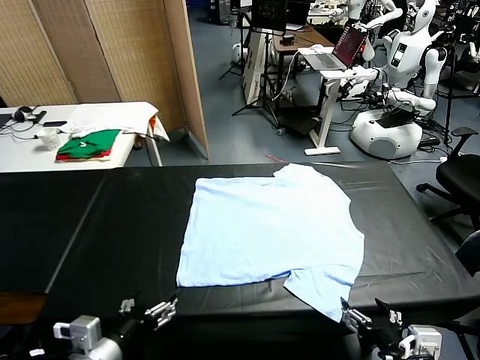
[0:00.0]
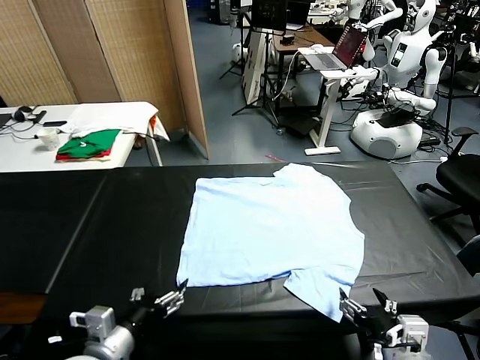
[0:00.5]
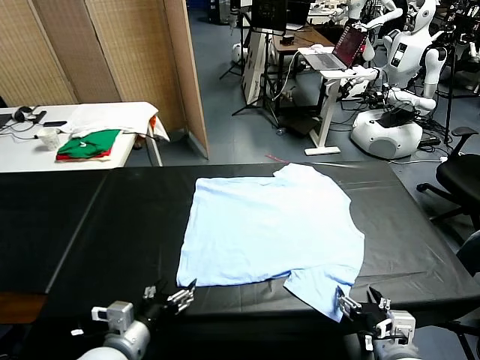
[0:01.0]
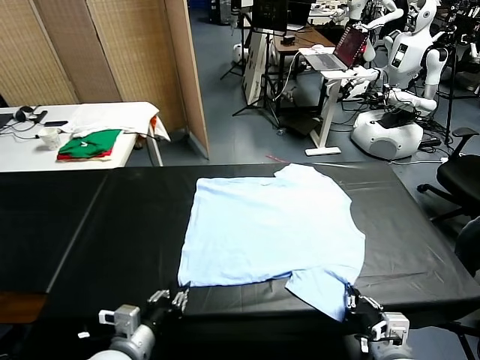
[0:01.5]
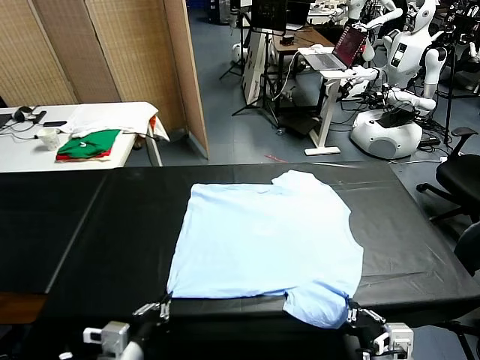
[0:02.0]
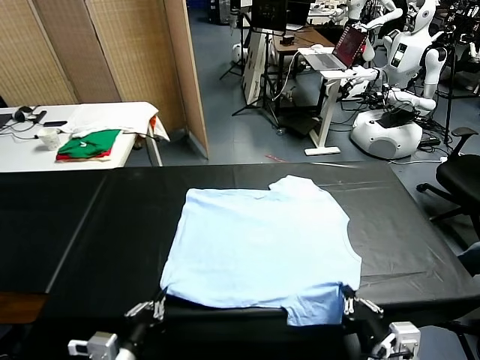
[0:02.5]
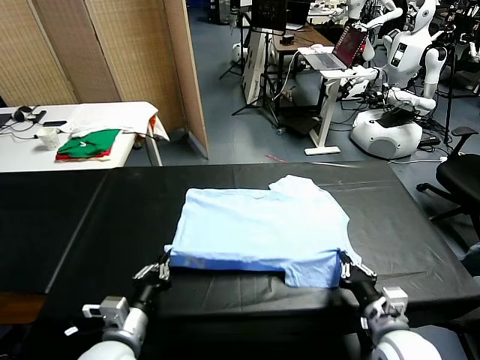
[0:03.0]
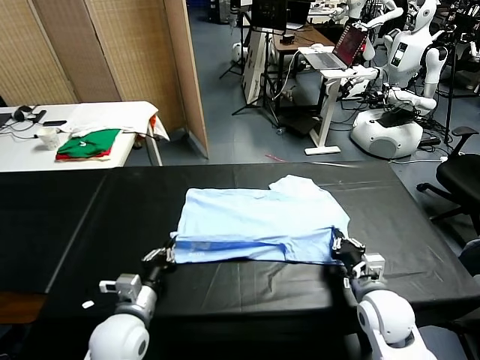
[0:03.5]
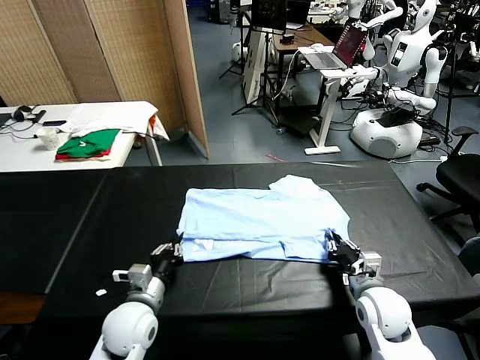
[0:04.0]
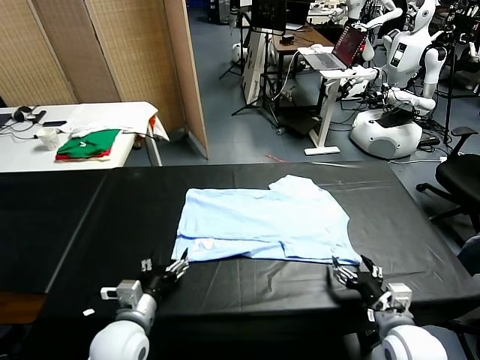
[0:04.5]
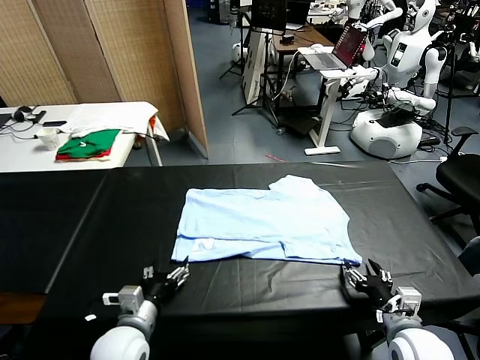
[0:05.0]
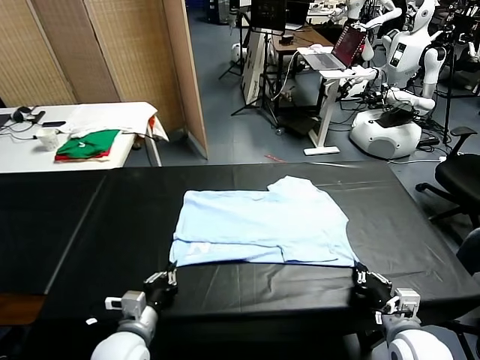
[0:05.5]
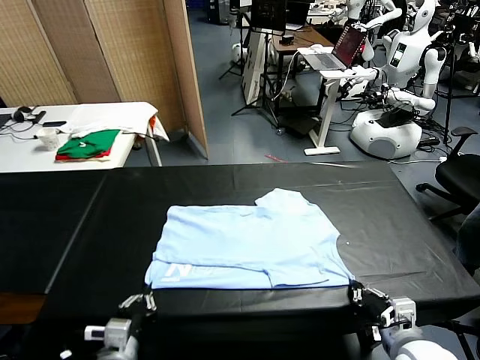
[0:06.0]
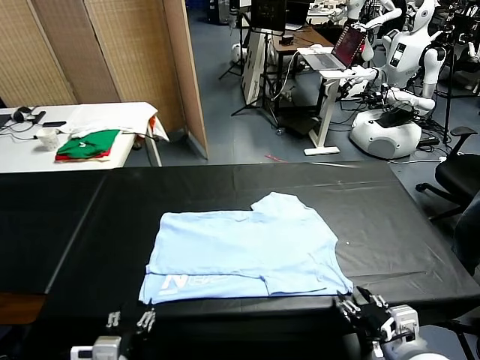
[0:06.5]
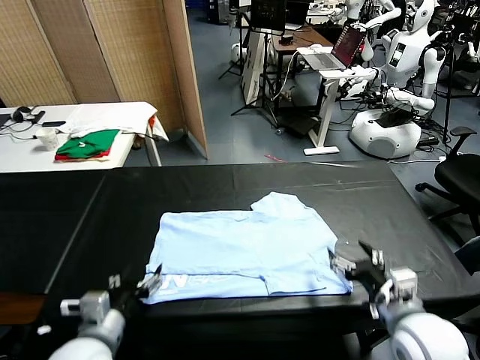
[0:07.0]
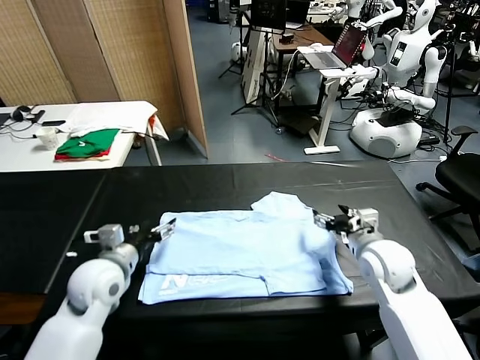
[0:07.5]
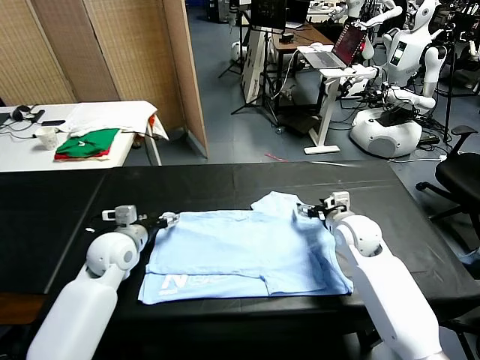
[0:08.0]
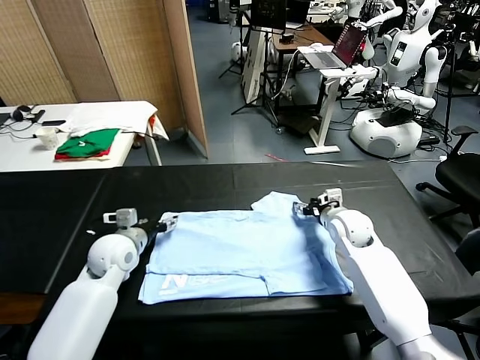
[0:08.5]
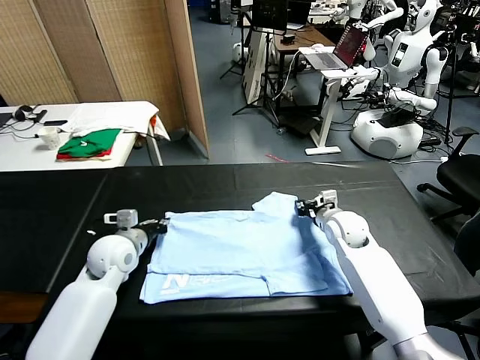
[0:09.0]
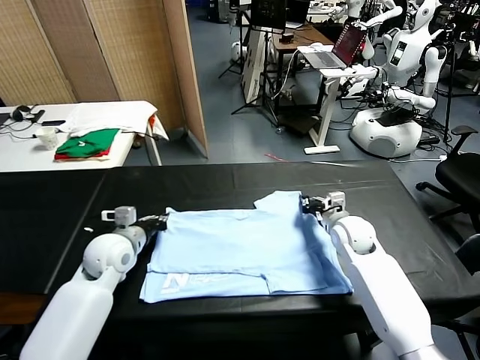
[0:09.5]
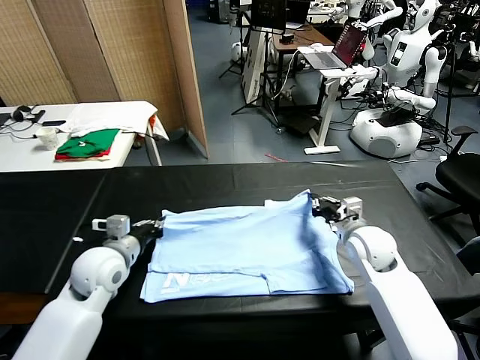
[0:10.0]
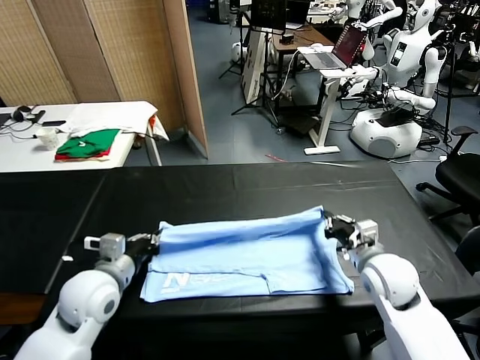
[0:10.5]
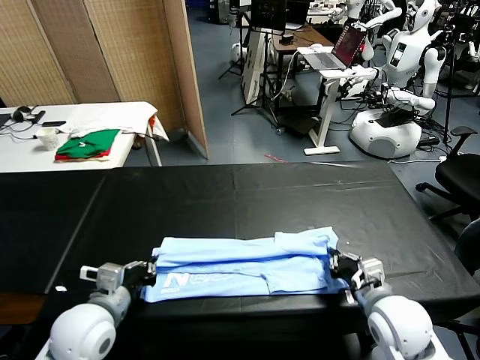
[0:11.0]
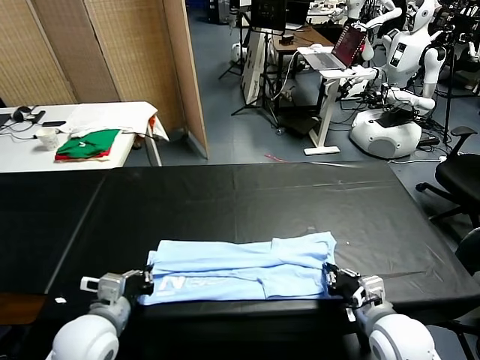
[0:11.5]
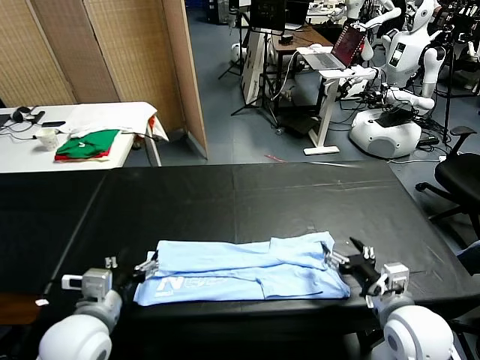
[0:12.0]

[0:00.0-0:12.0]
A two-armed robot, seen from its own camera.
Task of the whole recording: fold and organize the clothes.
Step, 0:00.0 to 0:01.5: use both grippers simultaneously to clamp the lower edge of the clothing fabric.
Step, 0:02.0 to 0:04.0: use both grippers to drag the lower edge of the fabric forward and fold it over the upper edge.
Step, 0:04.5 to 0:06.0: Drag the clothes downward with both gripper.
Step, 0:07.0 to 0:09.0: use both grippers simultaneously to clamp the upper edge of the clothing fabric.
Step, 0:09.5 to 0:11.5: use both grippers to drag the upper edge of the fabric backward and fold it over the lower edge.
0:02.0 to 0:04.0: The two grippers go roughly 15 cm forward. The right gripper opens its fingers.
0:04.0 to 0:06.0: Both grippers move backward, about 10 cm. The right gripper closes; the left gripper opens, then closes again.
0:06.0 to 0:08.0: The grippers both shift forward by roughly 25 cm. The left gripper opens its fingers. The right gripper opens up.
0:08.0 to 0:10.0: The two grippers go approximately 5 cm backward. The left gripper closes. The right gripper closes.
0:10.0 to 0:12.0: The grippers both shift backward by roughly 15 cm. The left gripper opens; the right gripper opens its fingers.

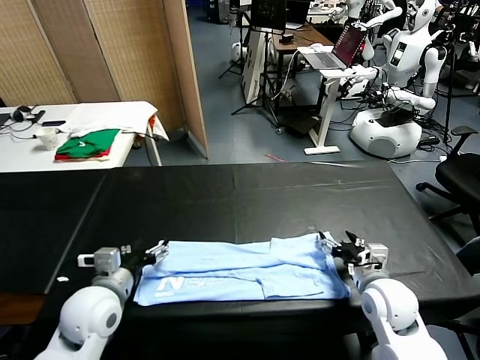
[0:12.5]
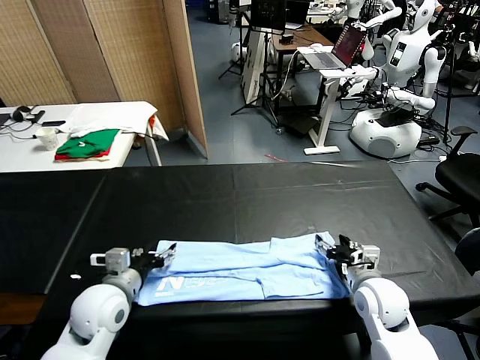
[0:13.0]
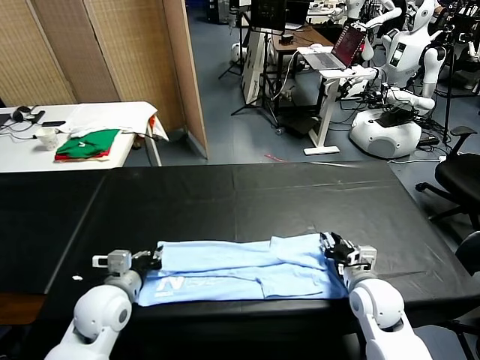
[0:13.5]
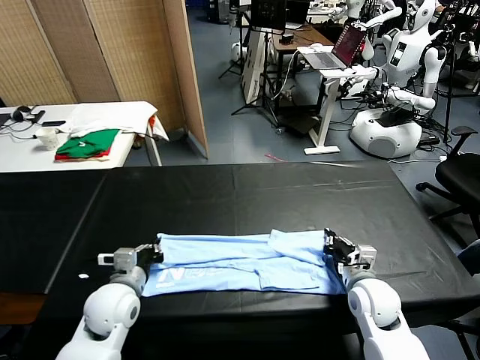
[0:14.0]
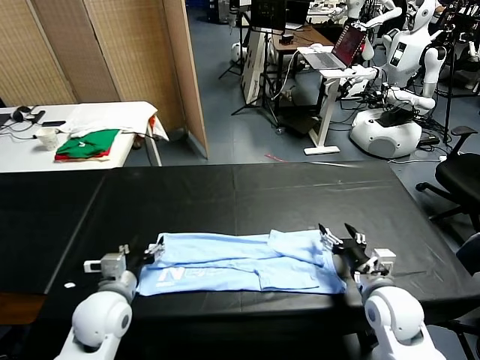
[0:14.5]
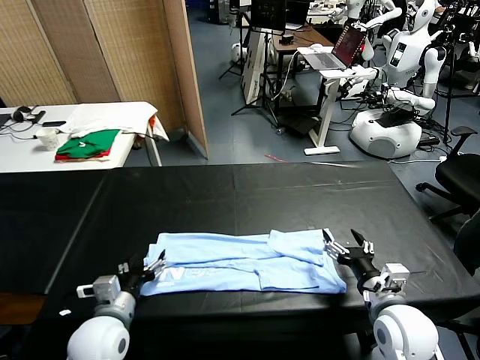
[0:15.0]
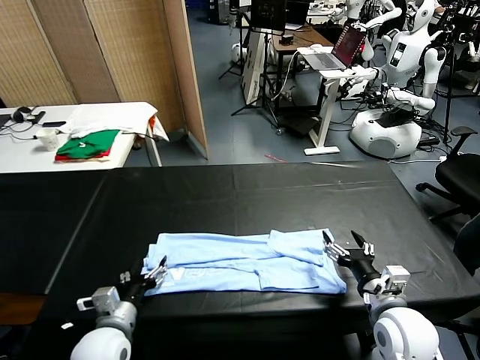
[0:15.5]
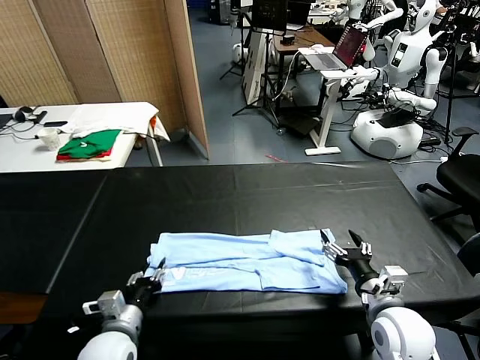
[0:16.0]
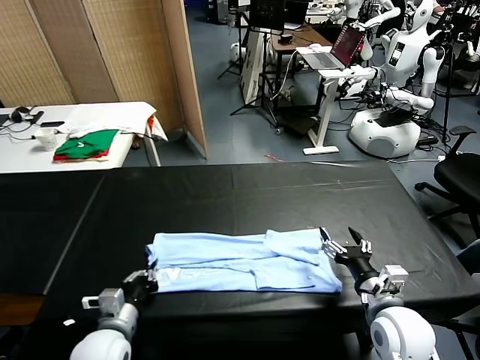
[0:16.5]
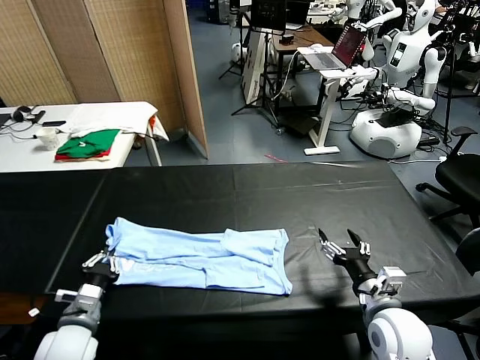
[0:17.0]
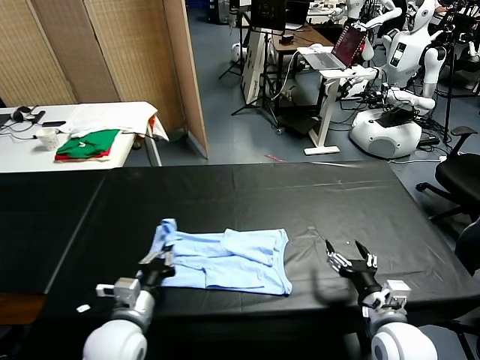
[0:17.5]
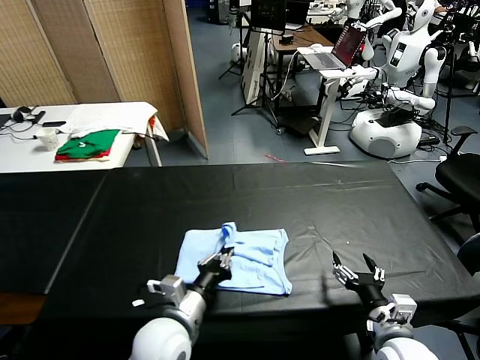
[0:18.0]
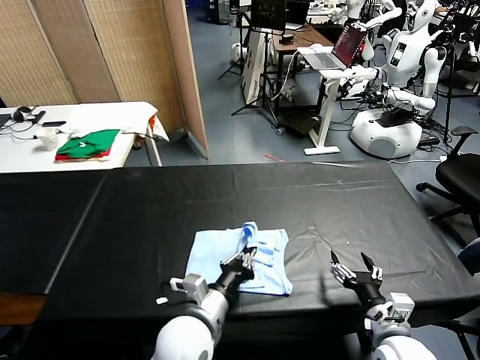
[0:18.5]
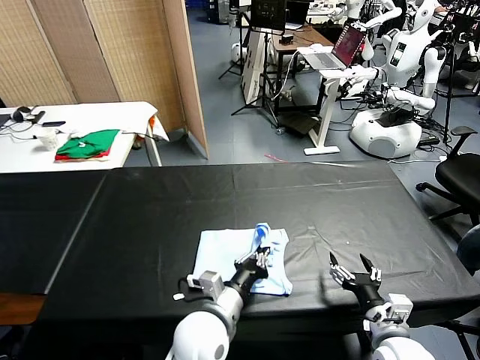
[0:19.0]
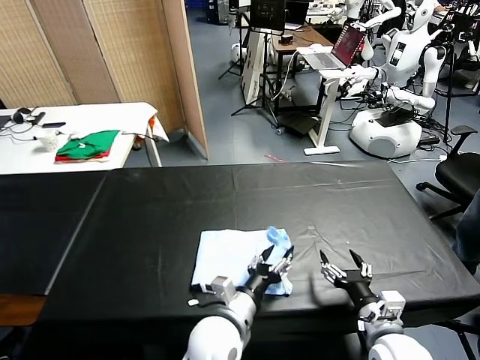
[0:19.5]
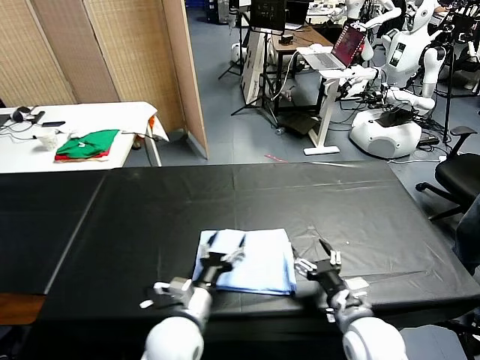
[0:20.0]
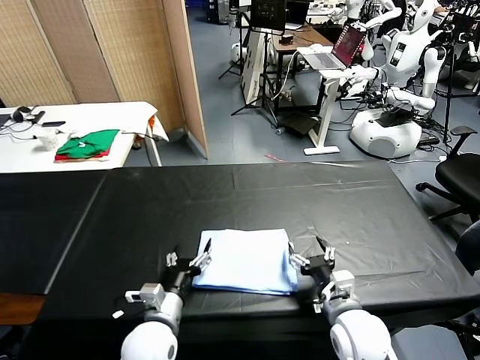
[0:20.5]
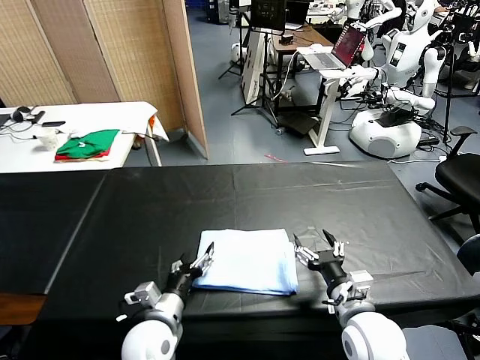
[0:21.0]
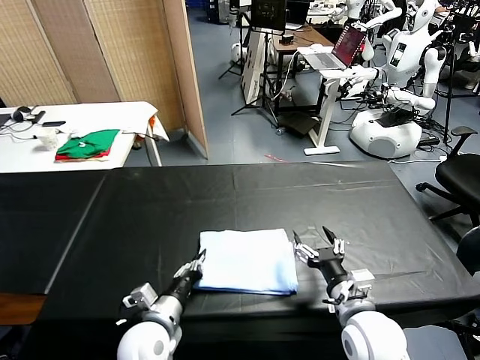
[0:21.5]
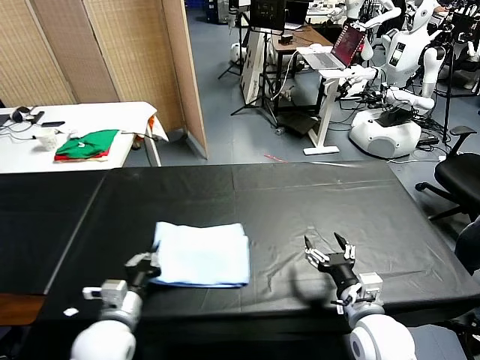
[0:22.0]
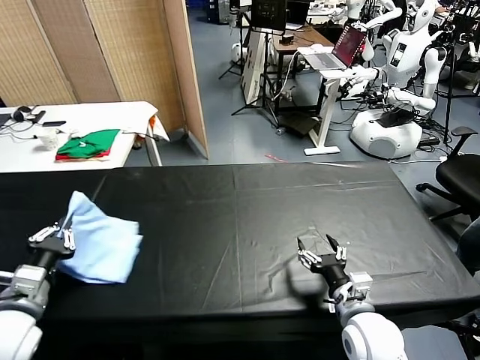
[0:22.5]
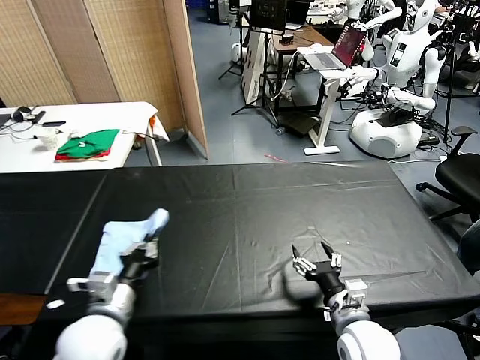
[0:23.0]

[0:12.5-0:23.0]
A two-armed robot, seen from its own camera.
Task of the whole recording: fold and organize the clothes.
Step, 0:12.5 to 0:16.5: use the left gripper to clamp the left edge of the fabric.
Step, 0:17.0 to 0:19.5: use the left gripper to drag the left edge of the fabric to the left and folds it over the right edge.
0:12.5 to 0:14.5: The left gripper closes, then reopens, while the right gripper closes and opens again.
0:14.5 to 0:16.5: The left gripper is displaced backward by roughly 5 cm, and closes its fingers.
0:16.5 to 0:19.0: The right gripper changes place by about 5 cm, while the left gripper shifts about 20 cm to the right.
0:19.0 to 0:21.0: The left gripper is displaced to the left and downward by about 10 cm, and opens up, while the right gripper is displaced to the left by approximately 5 cm.
0:21.0 to 0:23.0: The left gripper travels upward and to the left by about 15 cm, and closes.

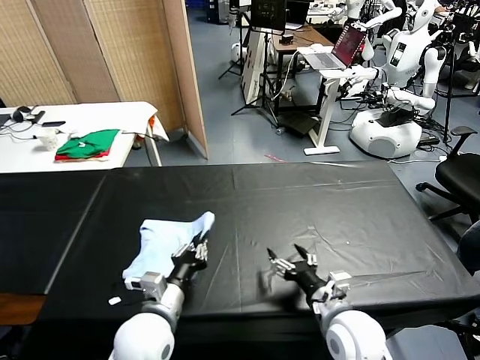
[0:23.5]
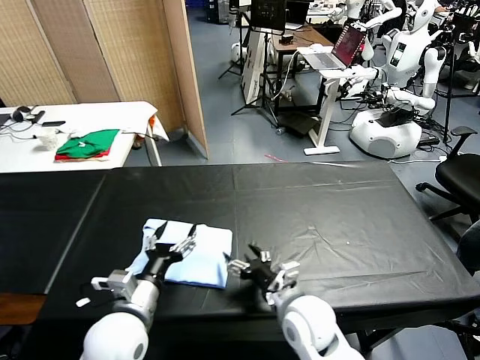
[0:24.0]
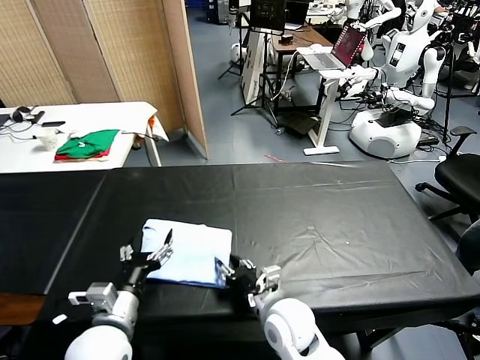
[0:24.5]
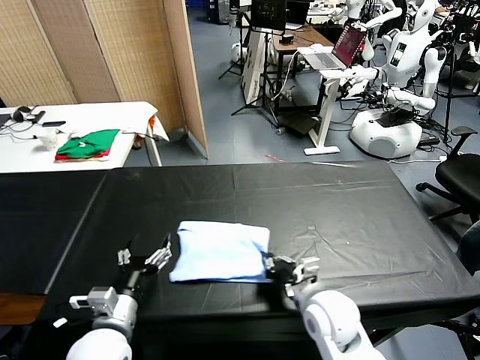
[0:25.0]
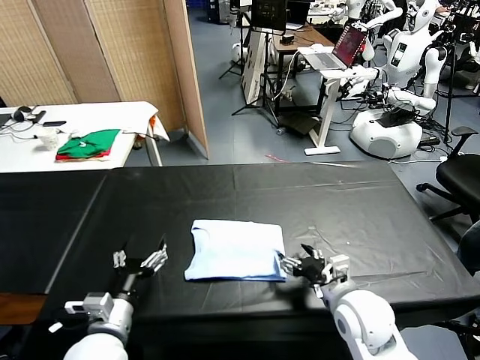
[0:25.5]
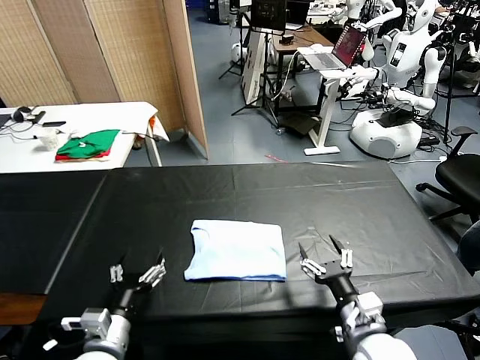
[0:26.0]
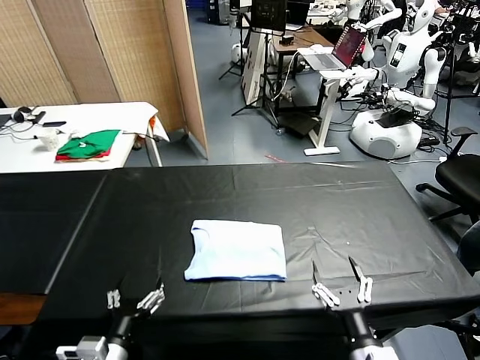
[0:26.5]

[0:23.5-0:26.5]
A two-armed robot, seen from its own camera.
Task of the whole recording: fold and organize the clothes.
Step, 0:24.0 to 0:25.0: Drag the clothes to the center of the table.
0:23.5 to 0:25.0: Both grippers move to the left, approximately 5 cm. The right gripper closes its fingers. The left gripper opens.
0:25.0 to 0:26.5: The right gripper is displaced backward and to the right by about 15 cm, and opens its fingers, while the left gripper moves backward, roughly 10 cm.
